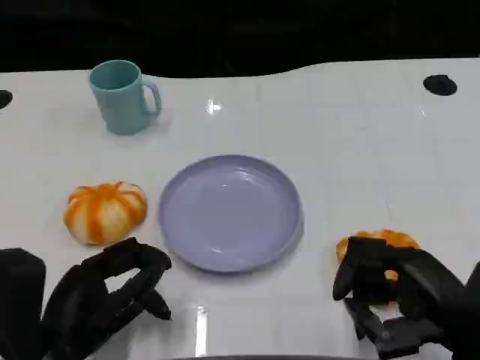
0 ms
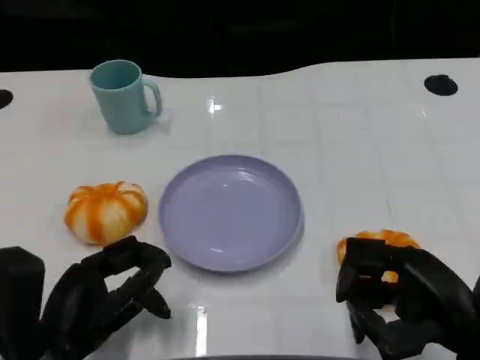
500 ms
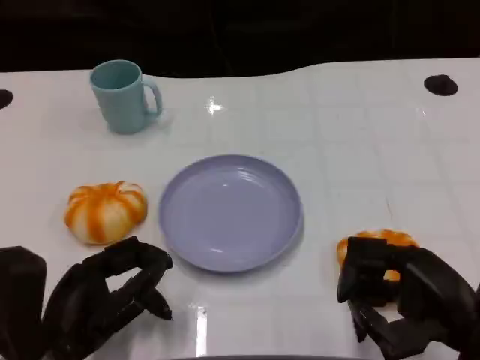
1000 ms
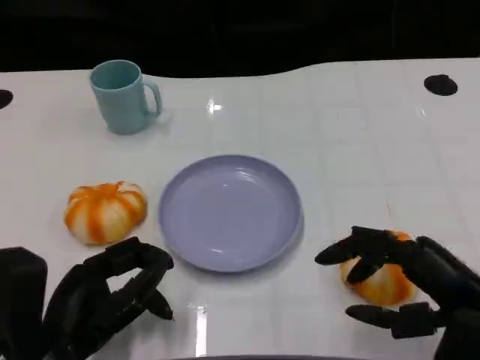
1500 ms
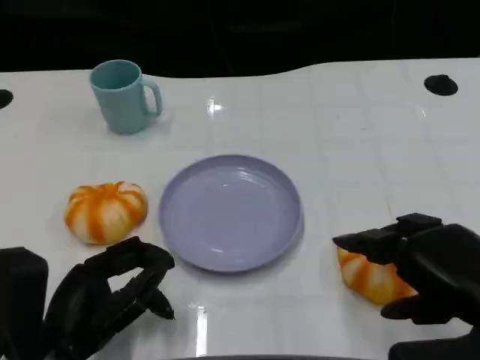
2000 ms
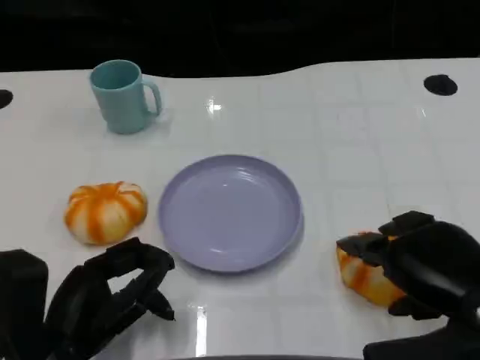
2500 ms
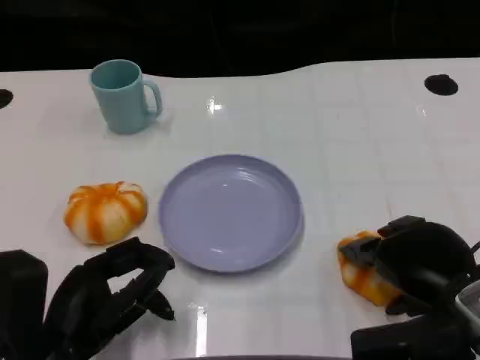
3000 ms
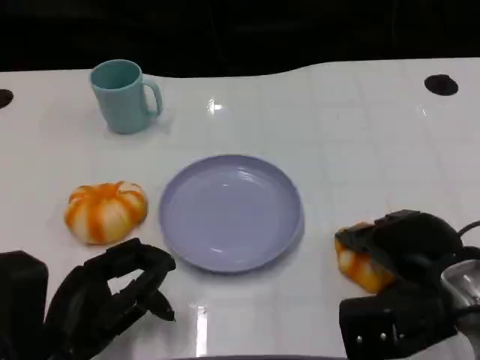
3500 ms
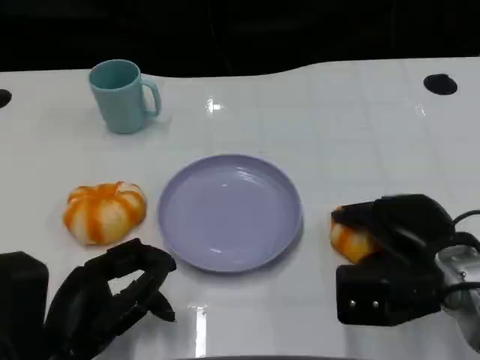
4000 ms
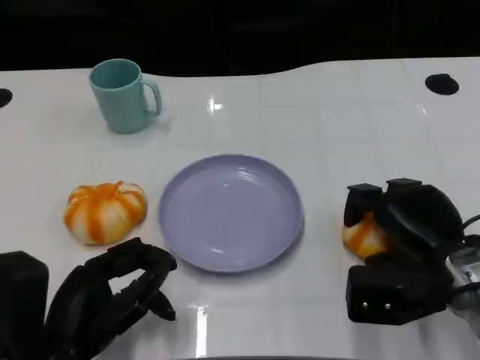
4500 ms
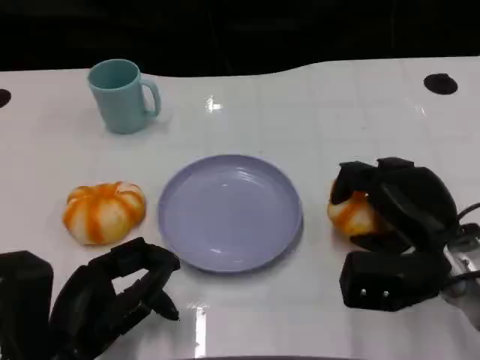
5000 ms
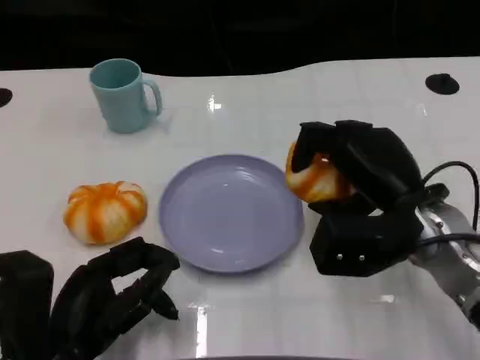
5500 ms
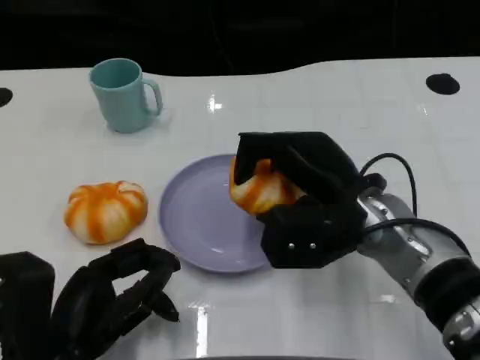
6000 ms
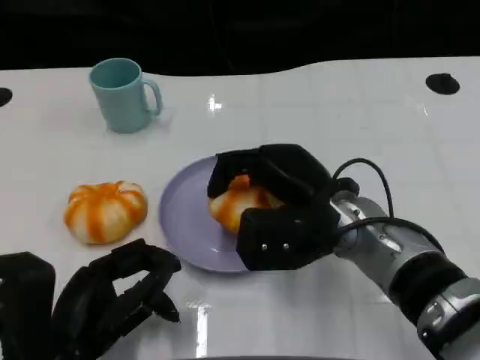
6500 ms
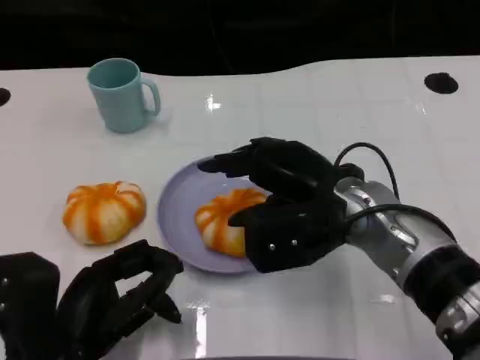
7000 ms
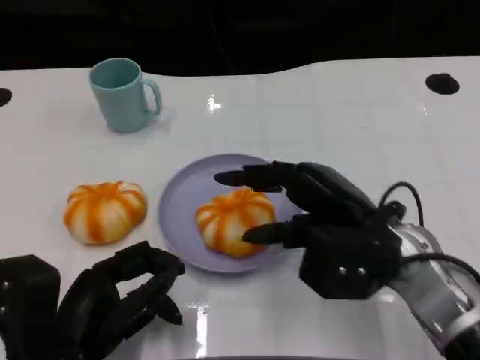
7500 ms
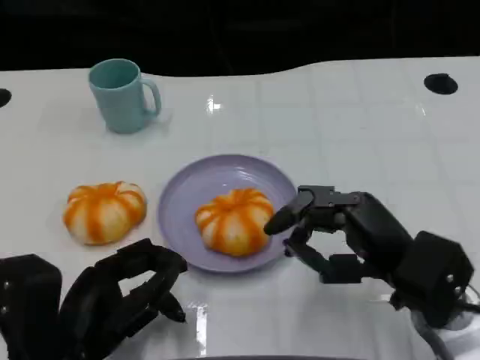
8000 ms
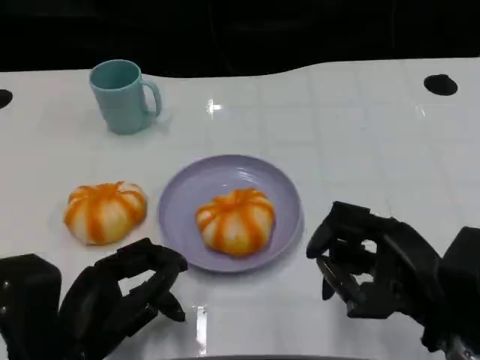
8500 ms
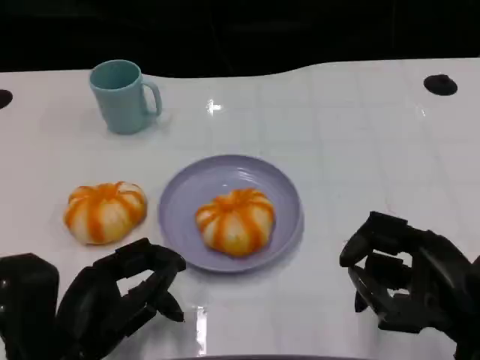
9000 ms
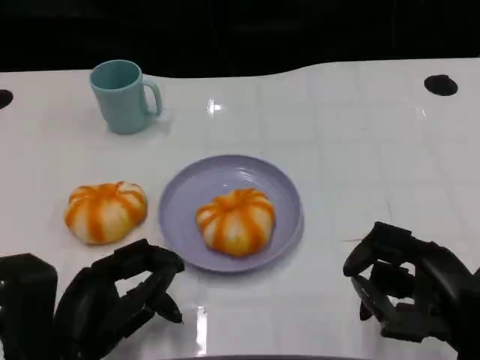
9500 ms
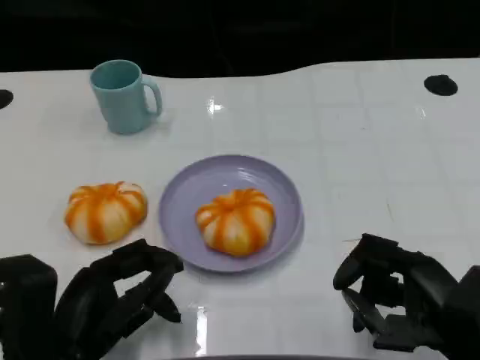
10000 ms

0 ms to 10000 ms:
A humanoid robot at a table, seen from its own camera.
Task of the whole recording: Grasp the bread from the table and place it into the plate.
2000 ms to 4000 ms: The right hand moves forward and downward, some 10 cm.
4000 ms to 6000 ms: The right hand moves to the left, roughly 10 cm.
6000 ms to 8000 ms: The right hand moves to the right and backward, approximately 10 cm.
8000 ms to 10000 ms: The right hand is displaced backward by some 5 cm.

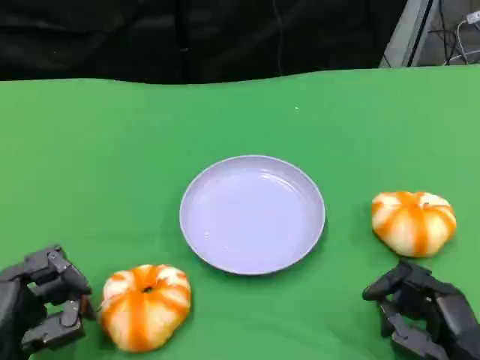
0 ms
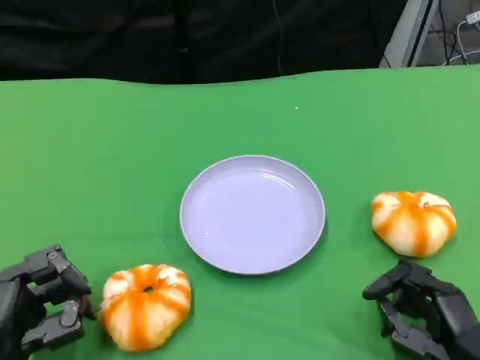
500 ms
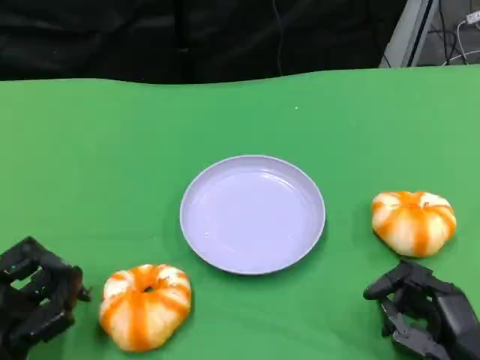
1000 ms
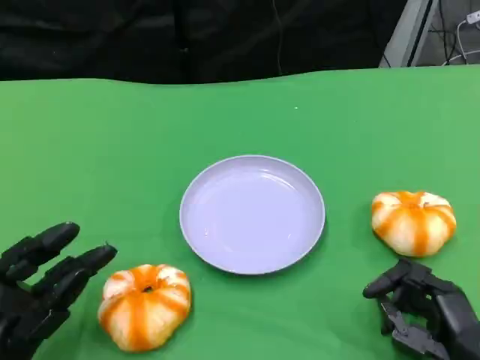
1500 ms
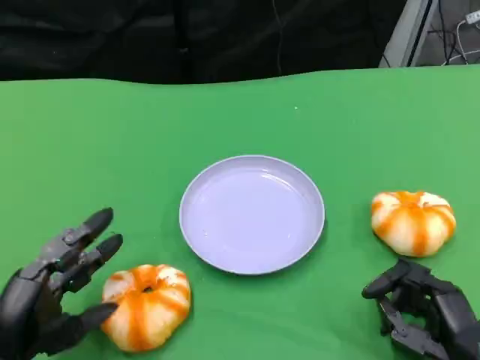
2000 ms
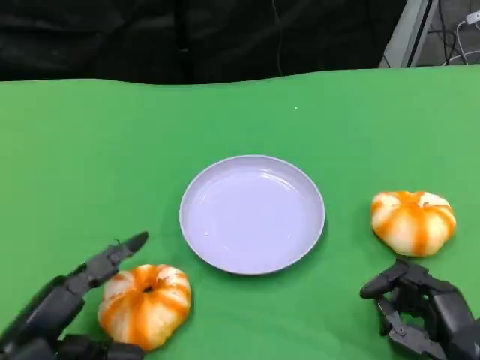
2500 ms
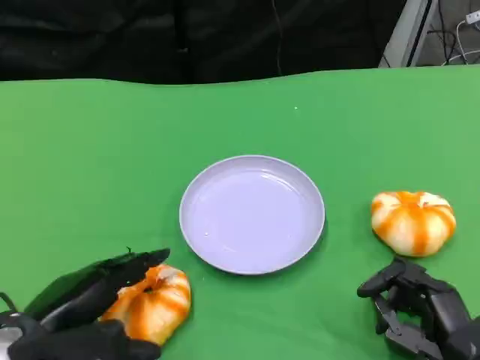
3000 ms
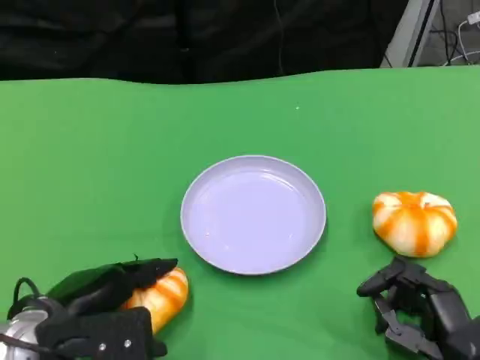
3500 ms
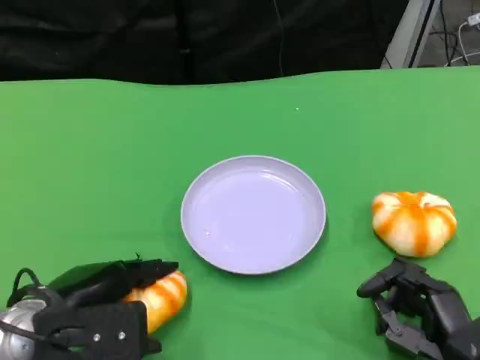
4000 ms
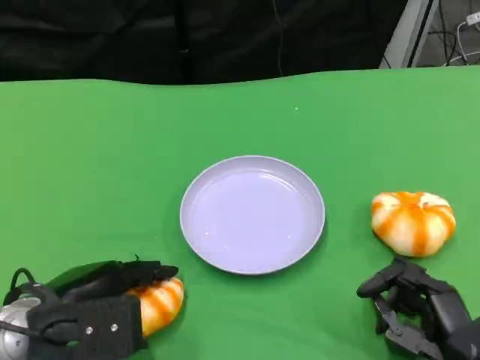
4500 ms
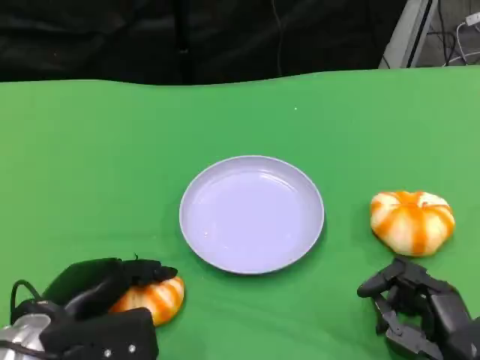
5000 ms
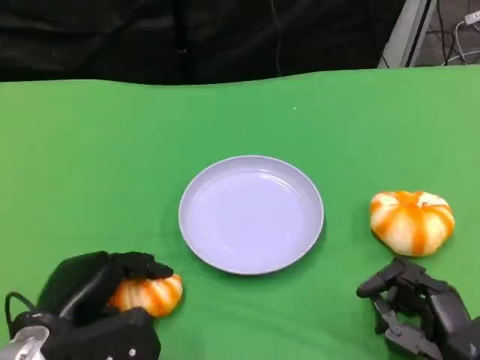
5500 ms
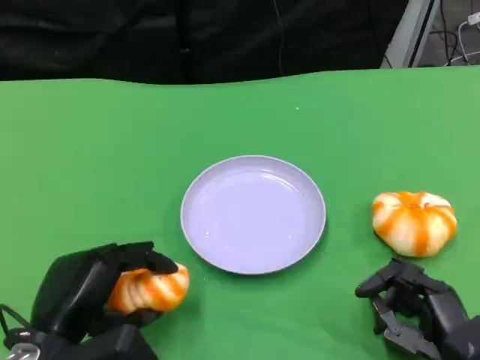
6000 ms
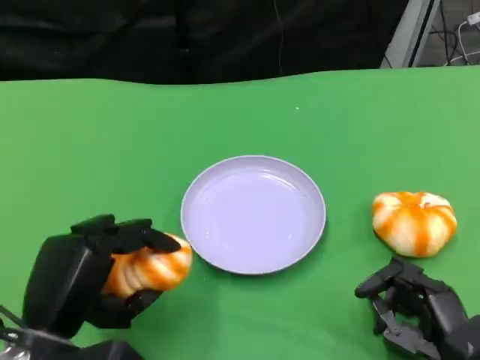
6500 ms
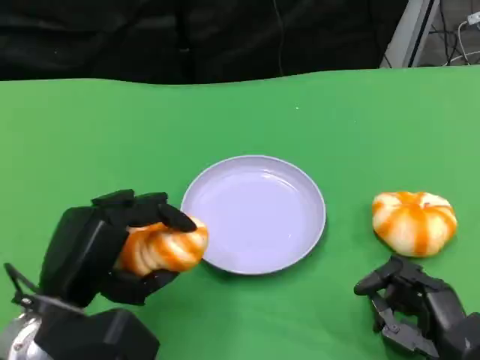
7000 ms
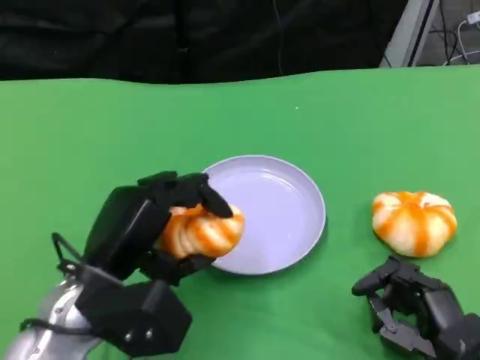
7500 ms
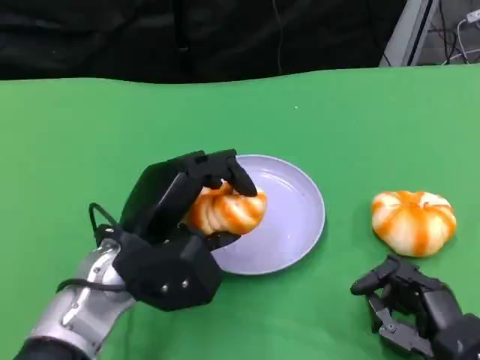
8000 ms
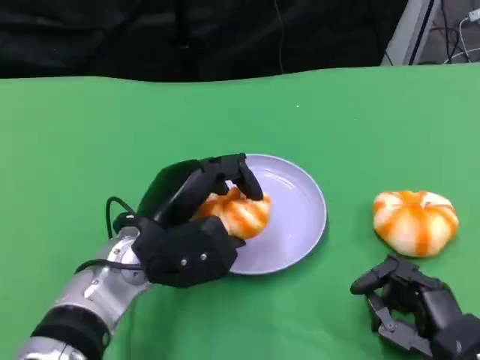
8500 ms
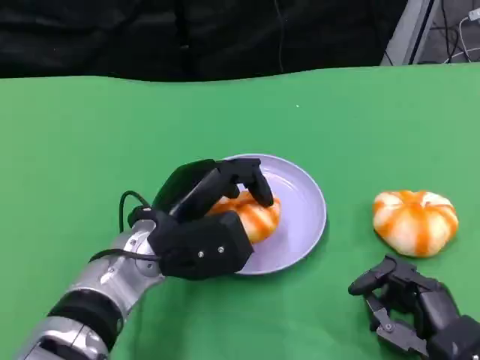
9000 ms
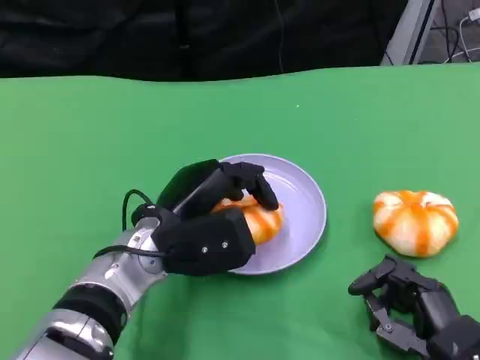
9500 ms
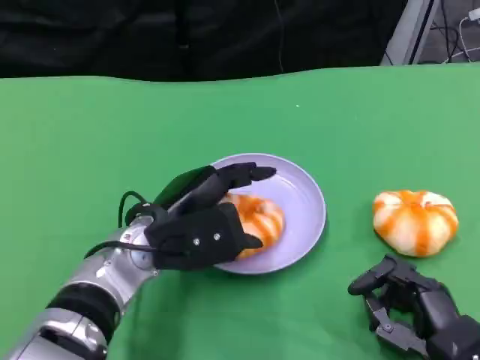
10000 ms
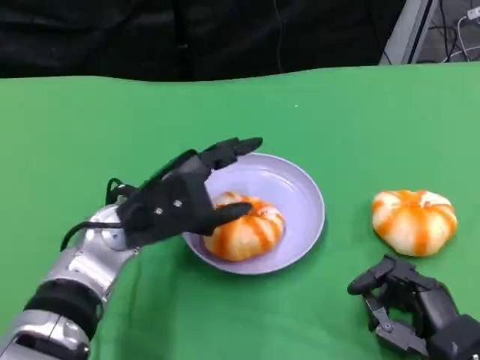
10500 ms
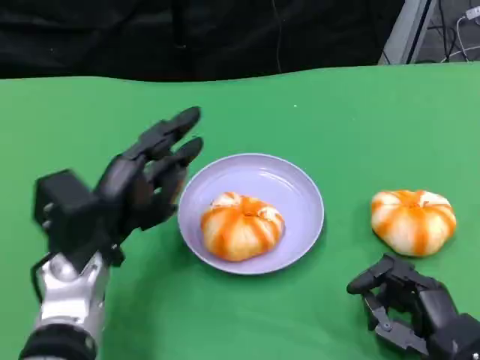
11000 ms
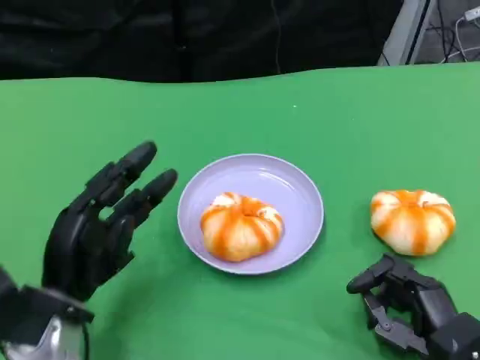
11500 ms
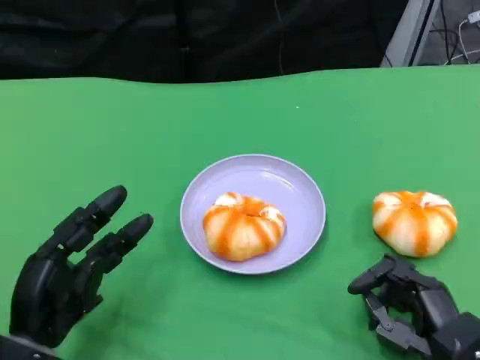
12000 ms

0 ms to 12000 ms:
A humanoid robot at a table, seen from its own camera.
Task of the whole recording: Grasp the bread from the table and place it into the plate.
2000 ms to 4000 ms: The left hand moves approximately 5 cm.
6000 ms to 8000 ms: The left hand shifts about 10 cm forward and to the right.
10000 ms to 12000 ms: The left hand heads to the left, backward and downward, covering some 15 cm.

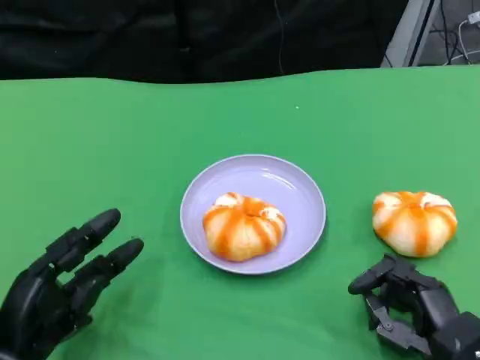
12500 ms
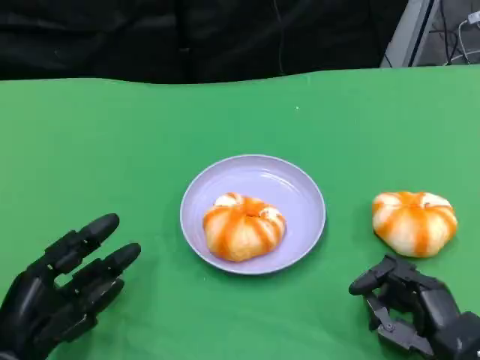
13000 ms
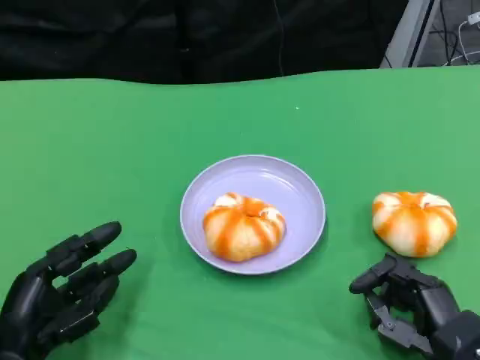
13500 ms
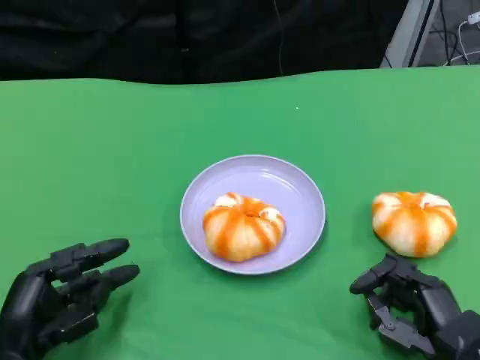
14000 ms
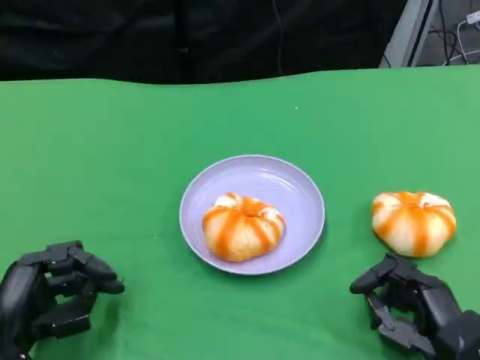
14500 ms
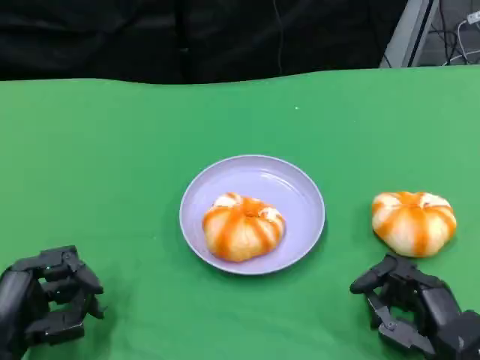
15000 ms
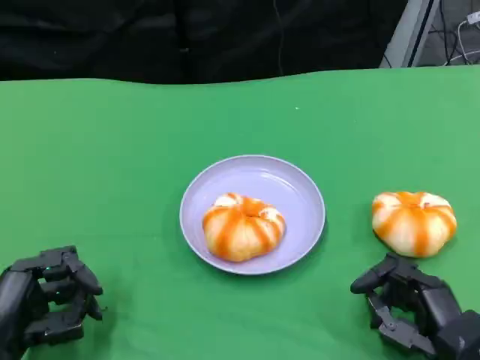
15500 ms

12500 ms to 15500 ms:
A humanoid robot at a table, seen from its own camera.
Task of the whole recording: Grasp the bread from the table and place it into the plate.
12500 ms to 14000 ms: The hands stay close to where they were, moving slightly.
14000 ms to 15500 ms: There are only small adjustments of the hands.

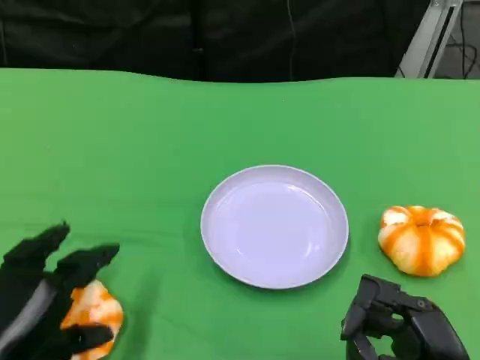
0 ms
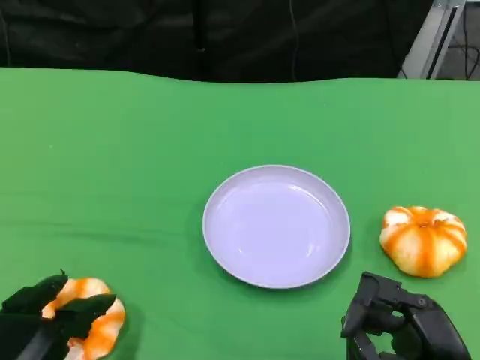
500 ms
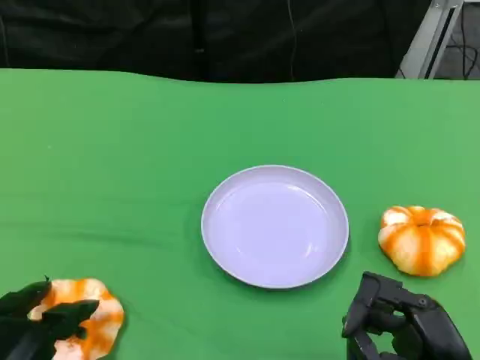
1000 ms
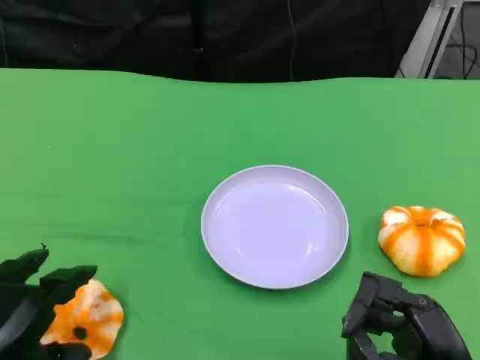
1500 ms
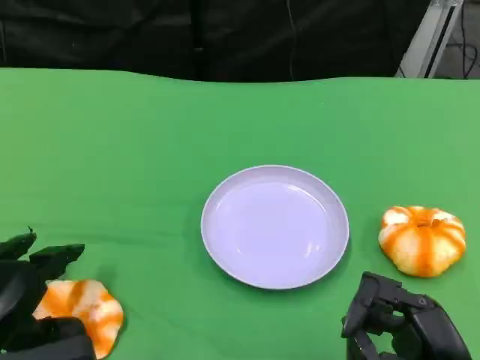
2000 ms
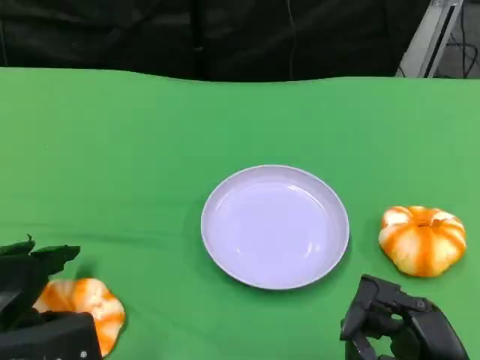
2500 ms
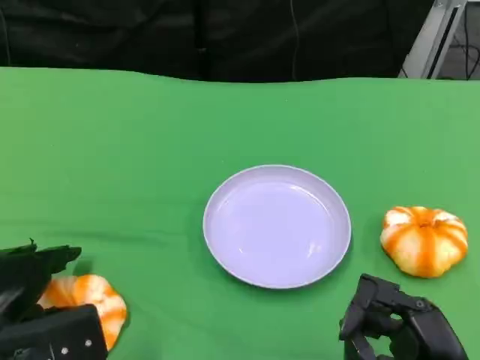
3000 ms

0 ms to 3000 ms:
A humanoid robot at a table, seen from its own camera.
Task of the whole recording: Grasp the bread from the table and place it into the plate.
0 ms to 1500 ms: There are only small adjustments of the hands.
1500 ms to 3000 ms: The left hand goes about 5 cm forward.
